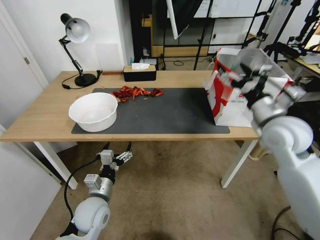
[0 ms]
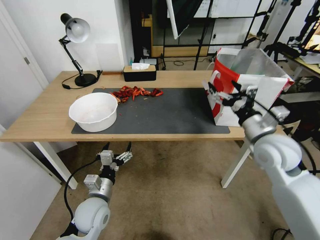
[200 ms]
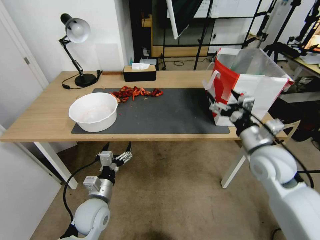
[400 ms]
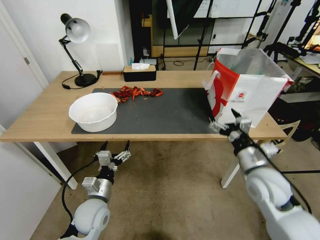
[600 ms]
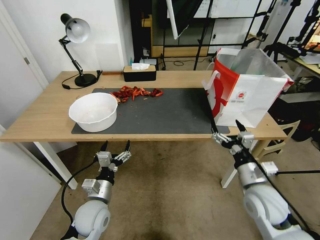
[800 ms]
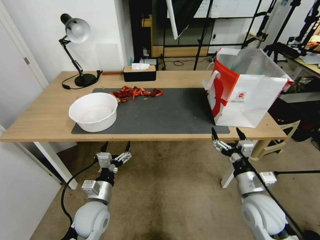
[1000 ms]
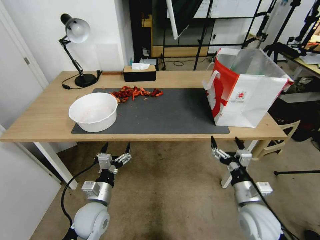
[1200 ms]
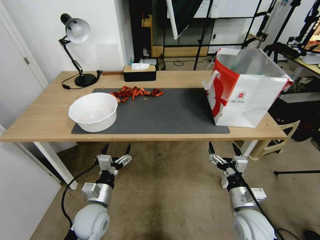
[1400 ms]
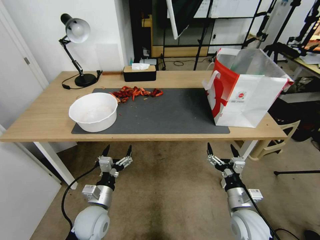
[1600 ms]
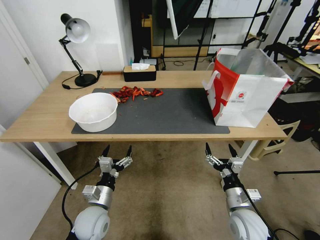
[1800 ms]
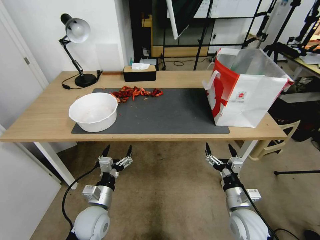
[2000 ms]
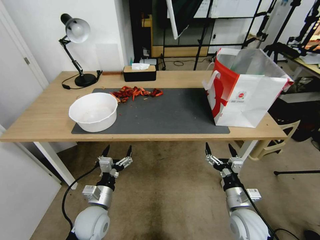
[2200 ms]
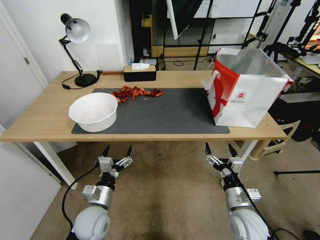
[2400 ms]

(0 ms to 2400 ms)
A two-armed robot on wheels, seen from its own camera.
Task of the whole recording: Close the takeout container lid, then place the container into the takeout bag.
0 ms - 1200 ms: The right gripper moves downward and backward, roughly 25 cm.
1200 ms - 2400 ms: The grippers make only small movements.

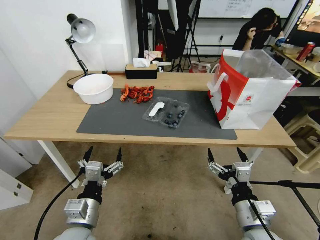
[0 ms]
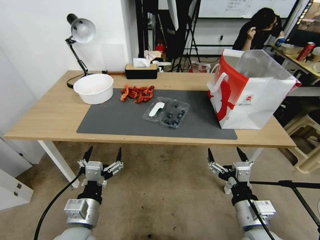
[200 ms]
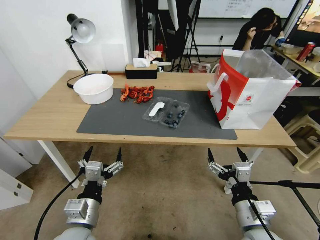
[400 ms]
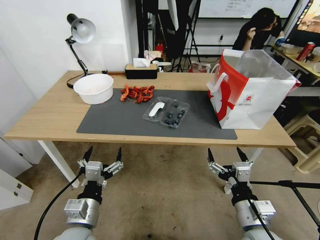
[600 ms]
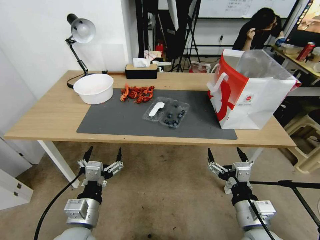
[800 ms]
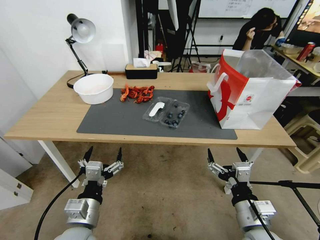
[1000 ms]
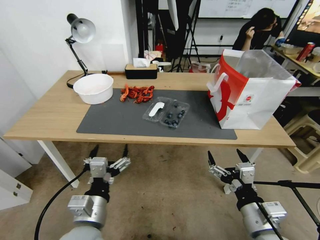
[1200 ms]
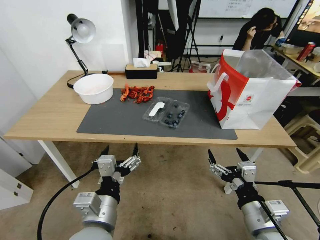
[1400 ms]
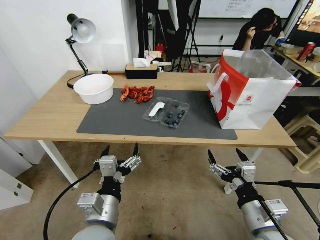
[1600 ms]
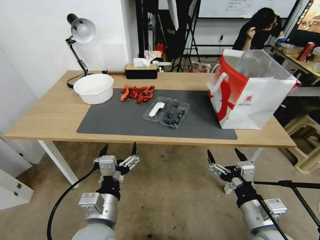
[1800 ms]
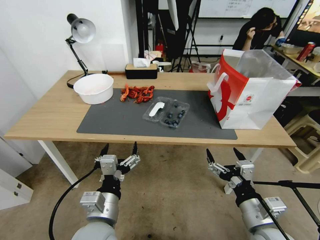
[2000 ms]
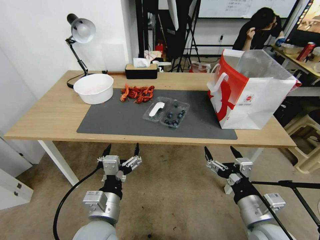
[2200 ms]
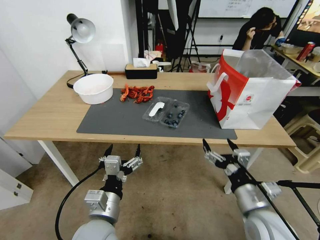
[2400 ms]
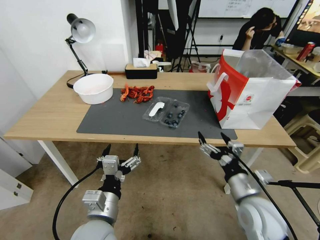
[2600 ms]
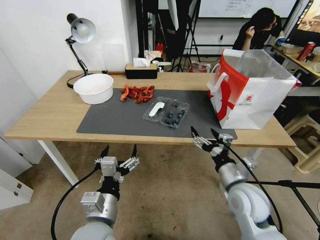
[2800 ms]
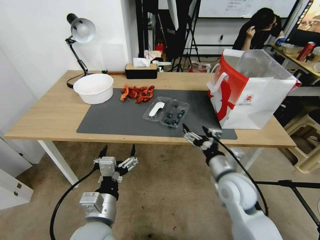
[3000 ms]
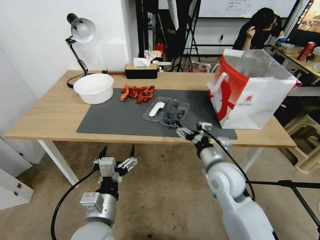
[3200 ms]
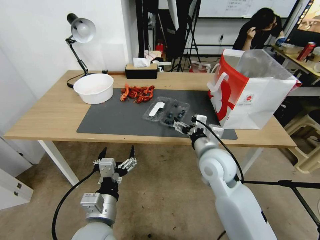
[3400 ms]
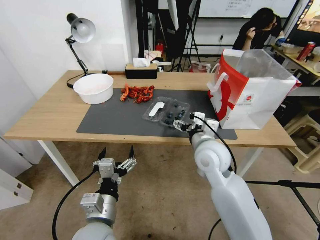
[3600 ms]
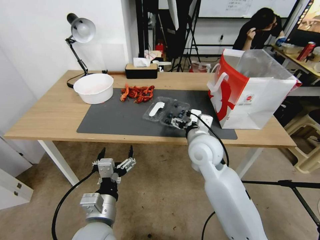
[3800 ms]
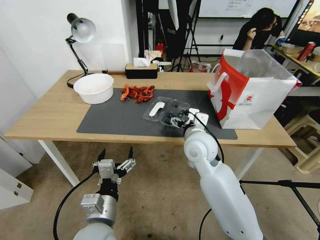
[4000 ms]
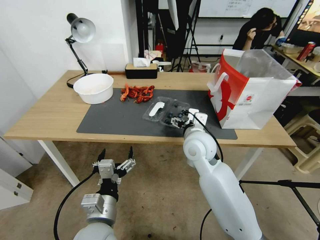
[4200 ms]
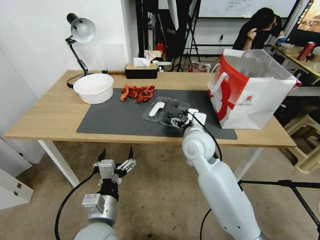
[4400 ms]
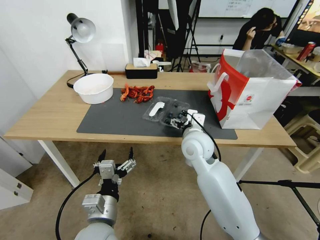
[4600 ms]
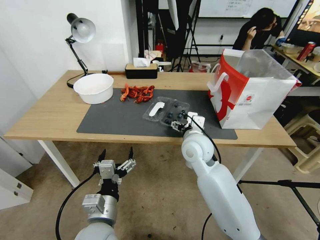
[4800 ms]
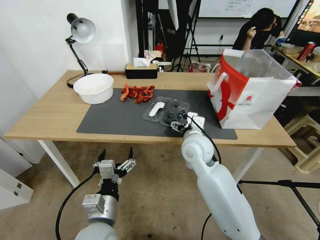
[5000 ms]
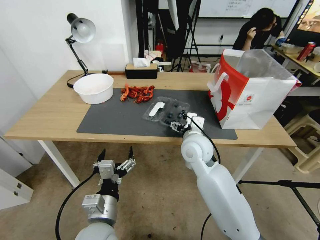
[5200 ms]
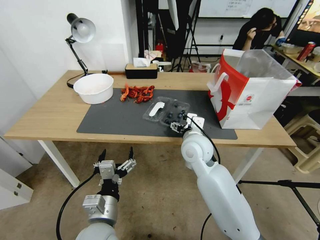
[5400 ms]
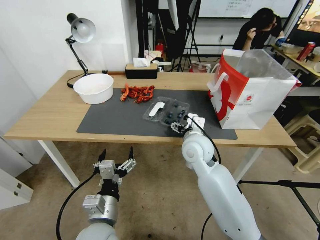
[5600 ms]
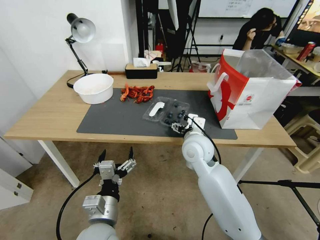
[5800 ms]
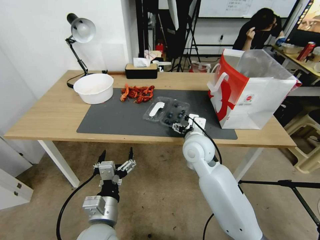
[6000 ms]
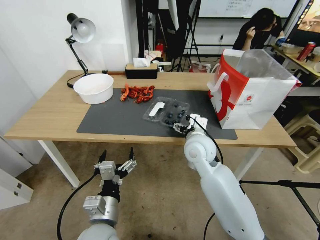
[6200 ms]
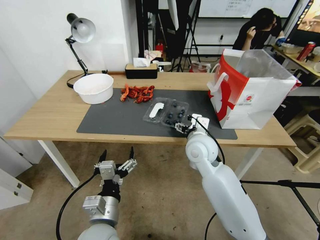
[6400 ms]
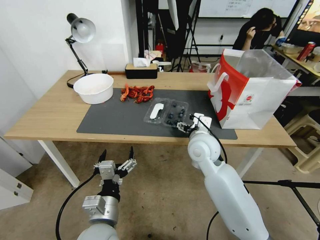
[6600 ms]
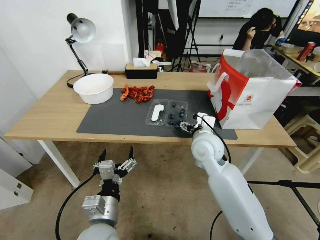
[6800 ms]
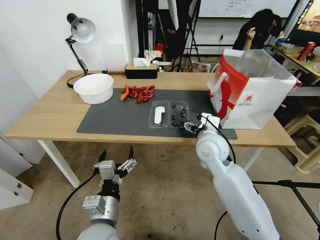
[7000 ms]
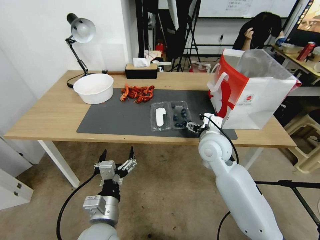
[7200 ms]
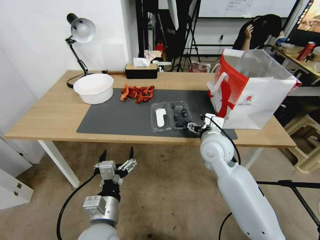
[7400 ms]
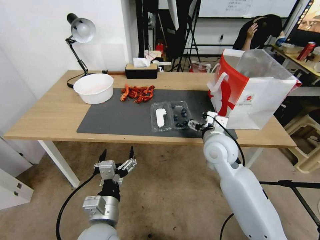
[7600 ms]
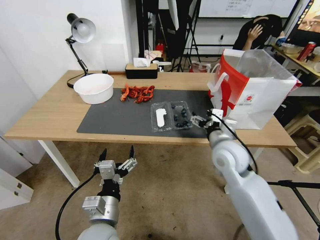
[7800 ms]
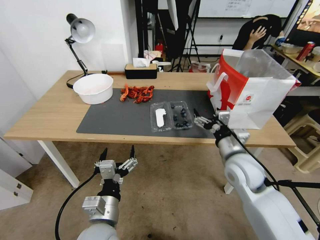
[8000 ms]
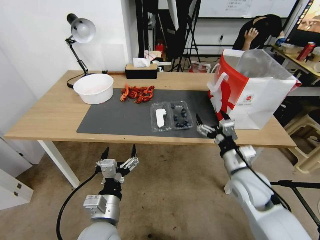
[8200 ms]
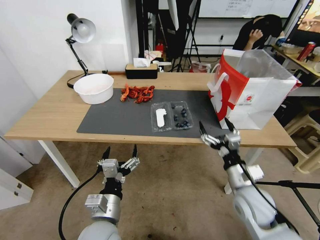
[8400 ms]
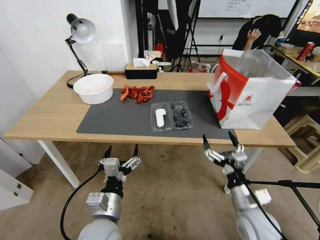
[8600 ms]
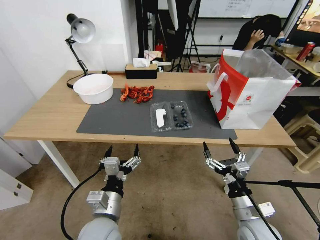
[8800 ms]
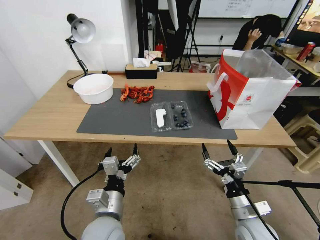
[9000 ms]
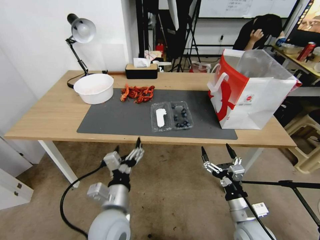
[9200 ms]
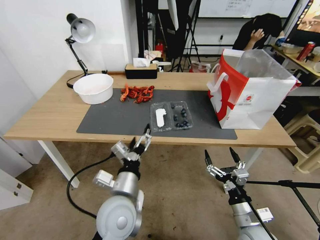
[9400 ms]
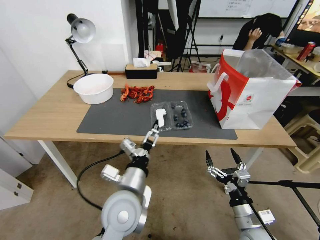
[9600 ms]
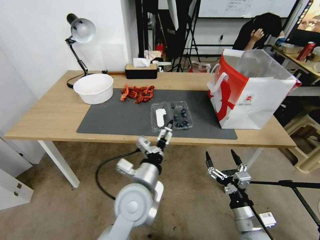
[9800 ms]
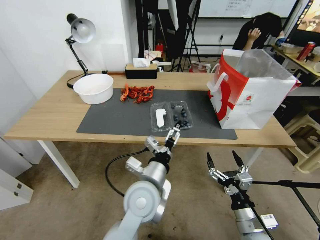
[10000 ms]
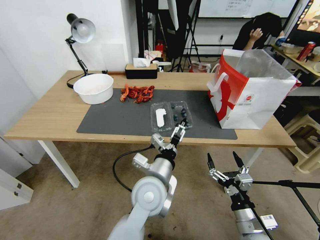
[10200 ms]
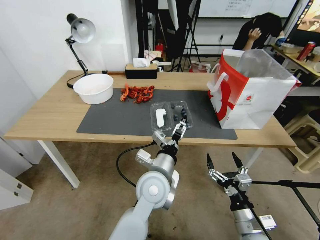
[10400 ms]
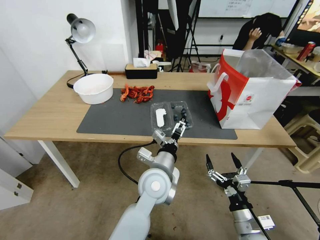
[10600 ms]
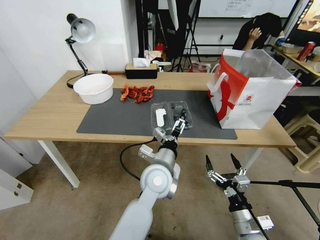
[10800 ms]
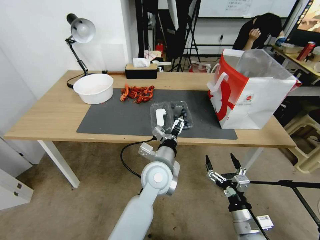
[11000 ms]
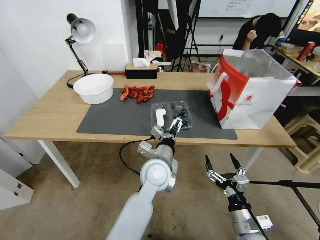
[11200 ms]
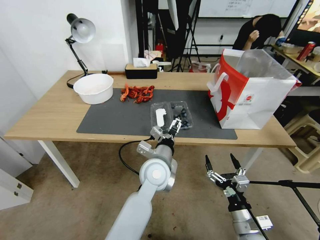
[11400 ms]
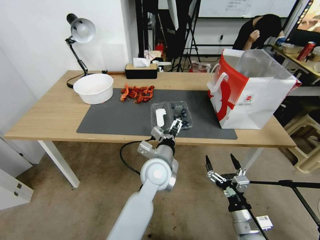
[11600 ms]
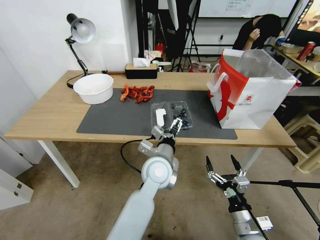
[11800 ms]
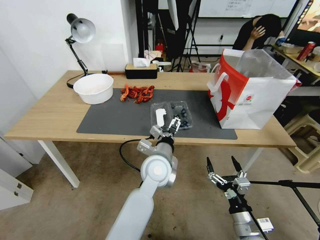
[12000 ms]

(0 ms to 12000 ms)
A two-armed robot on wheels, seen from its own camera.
Task of the whole recording: Close the takeout container lid, then place the container into the takeout bag.
1600 ms - 3000 ms: The right gripper shifts approximately 15 cm forward.
3000 ms - 4400 ms: The right gripper goes some 15 cm forward, to the left and upward.
4400 ms - 6000 ms: The grippers stay close to where they were, moving slightly.
6000 ms - 7600 ms: The right gripper travels to the right by some 5 cm.
7600 ms - 9000 ms: The right gripper shifts roughly 25 cm backward, downward and to the right.
9000 ms - 10400 ms: The left gripper goes approximately 15 cm to the right and forward.
10400 ms - 12000 ms: The left gripper moves forward, roughly 5 cm.

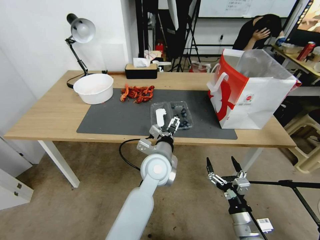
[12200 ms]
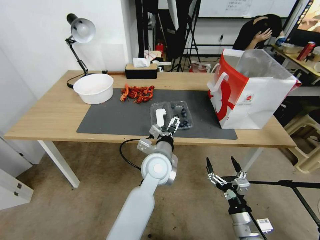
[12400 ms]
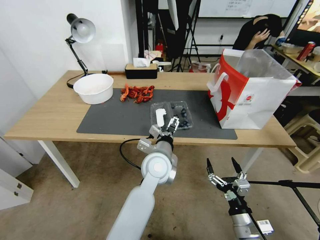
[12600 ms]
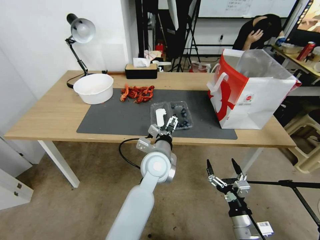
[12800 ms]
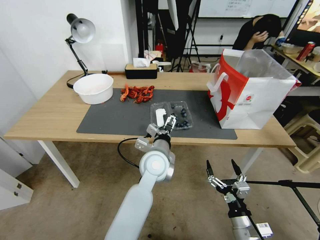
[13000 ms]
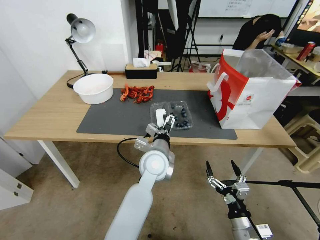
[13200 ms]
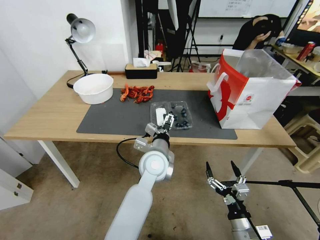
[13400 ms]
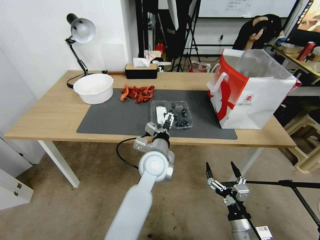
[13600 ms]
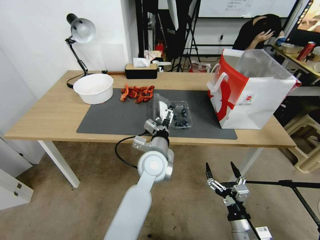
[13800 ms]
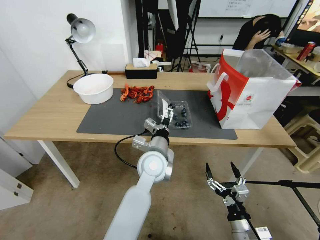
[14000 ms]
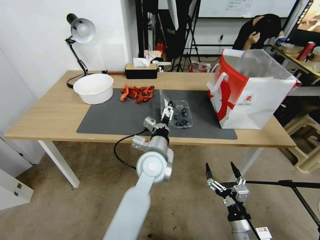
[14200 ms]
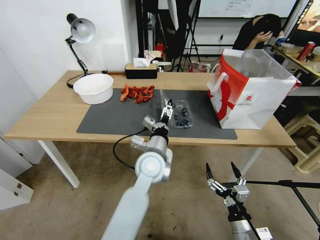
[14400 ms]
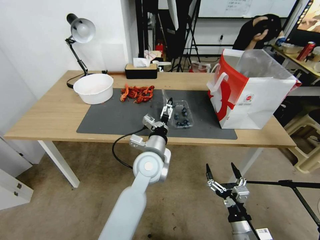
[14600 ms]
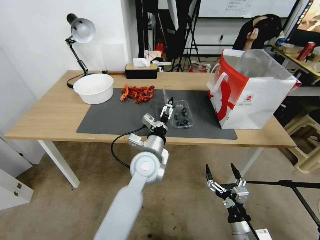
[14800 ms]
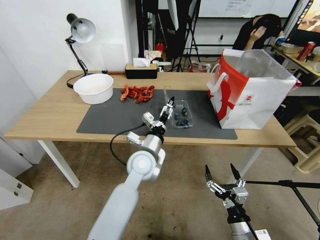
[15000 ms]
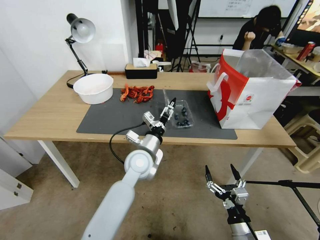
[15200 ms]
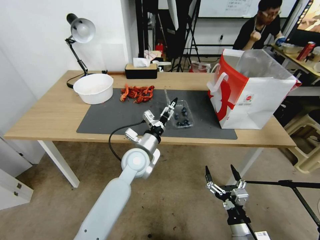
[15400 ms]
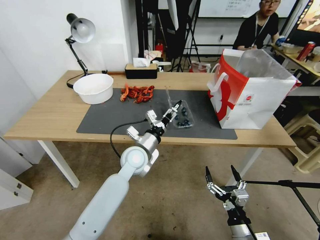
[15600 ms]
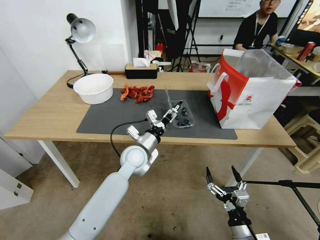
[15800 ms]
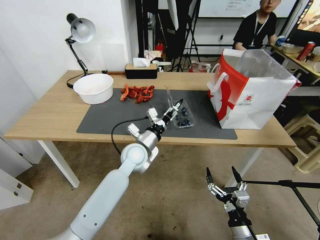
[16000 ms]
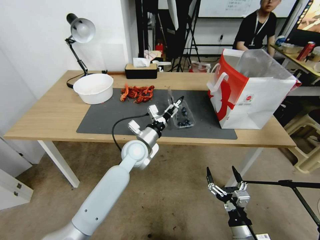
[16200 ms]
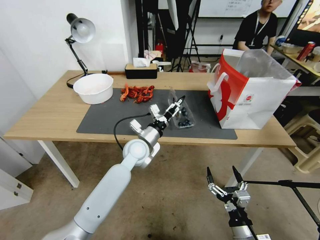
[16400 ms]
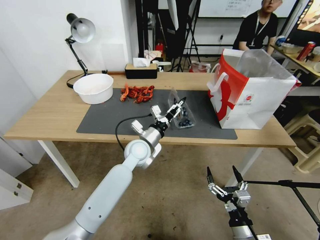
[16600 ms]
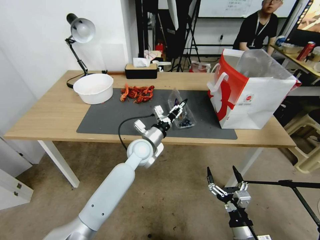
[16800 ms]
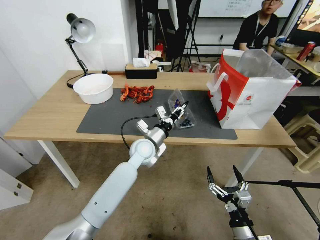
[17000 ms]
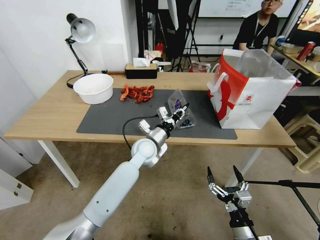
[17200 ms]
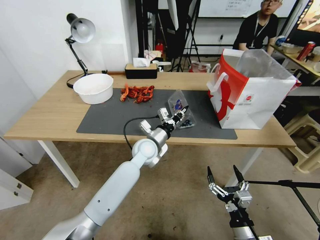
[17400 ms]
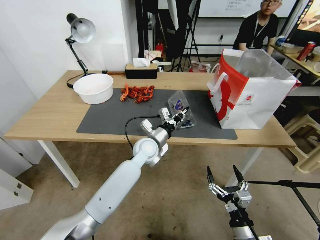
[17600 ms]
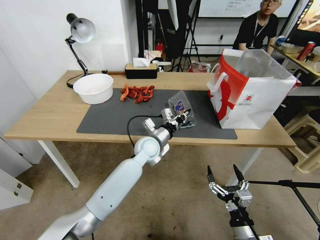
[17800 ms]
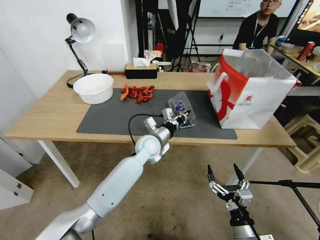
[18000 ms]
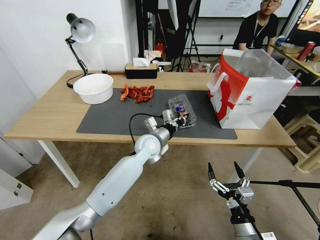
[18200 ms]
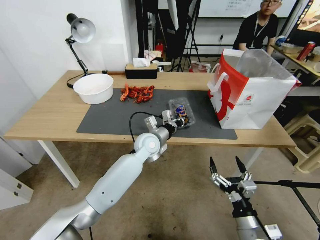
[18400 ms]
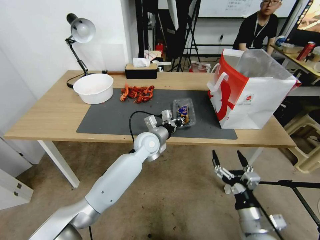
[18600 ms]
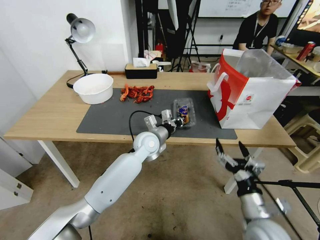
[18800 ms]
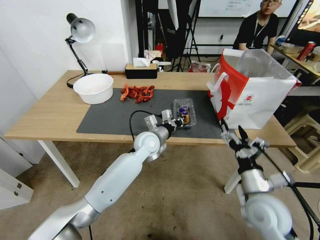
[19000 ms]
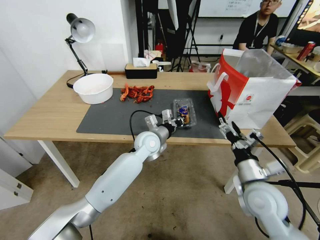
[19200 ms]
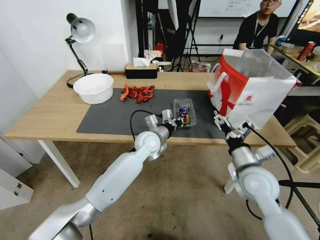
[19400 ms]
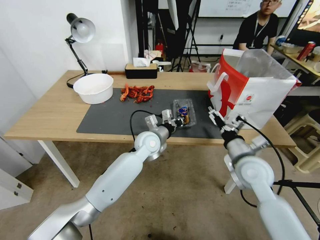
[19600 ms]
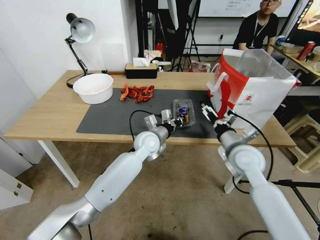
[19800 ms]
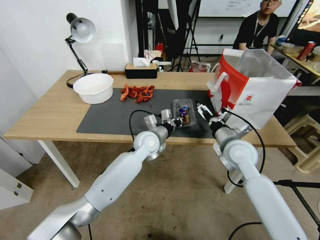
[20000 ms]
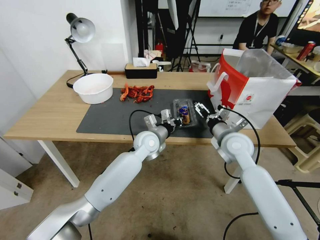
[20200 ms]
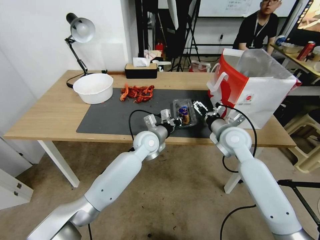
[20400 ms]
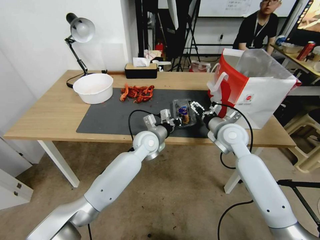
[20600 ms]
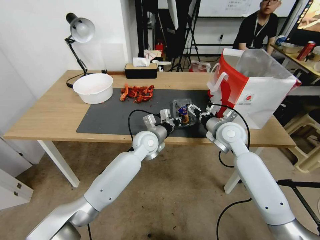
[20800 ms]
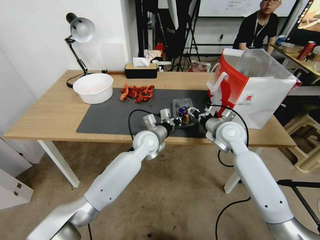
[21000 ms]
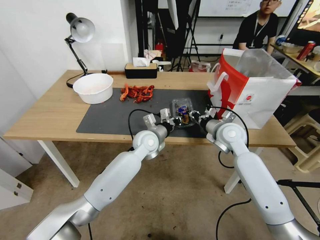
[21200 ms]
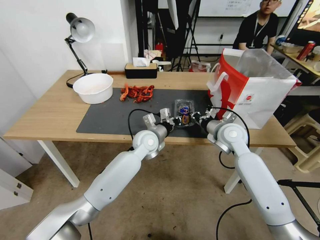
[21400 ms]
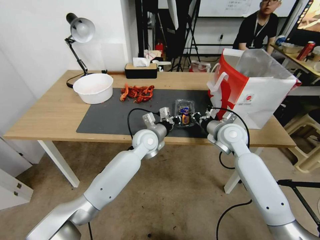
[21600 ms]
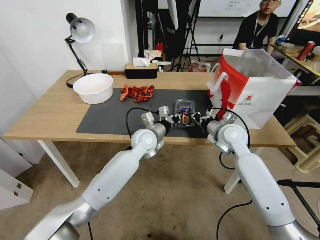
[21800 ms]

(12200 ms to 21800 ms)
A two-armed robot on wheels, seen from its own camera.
Task of the whole recording: Close the takeout container lid, then place the container into the takeout bag.
12200 ms - 13800 ms: The grippers stay close to where they were, moving slightly.
13800 ms - 15400 ms: The left gripper heads to the left, covering roughly 5 cm.
15400 ms - 17000 ms: The left gripper is displaced forward by approximately 5 cm, and closes.
17000 ms - 18600 ms: The right gripper moves upward, approximately 5 cm.
18600 ms - 20200 ms: The right gripper moves forward and upward, approximately 30 cm.
20200 ms - 21800 ms: The right gripper closes its fingers.
